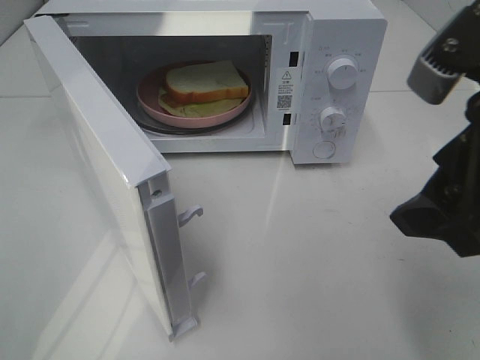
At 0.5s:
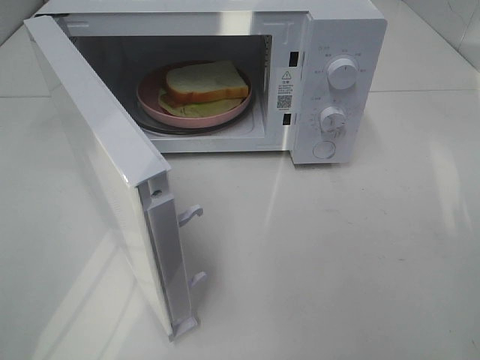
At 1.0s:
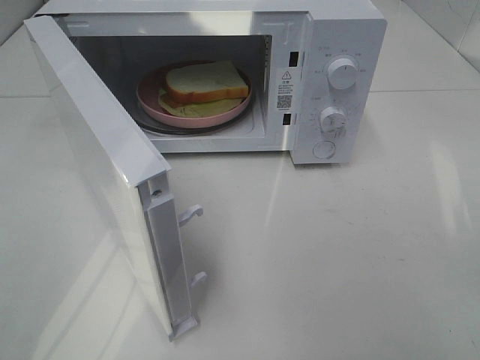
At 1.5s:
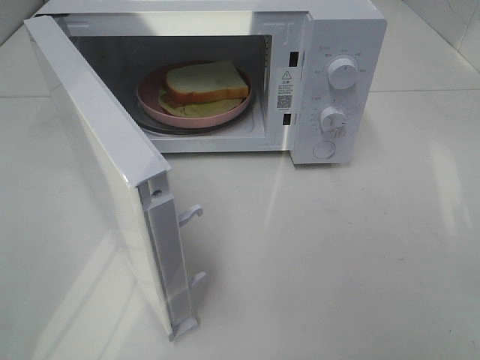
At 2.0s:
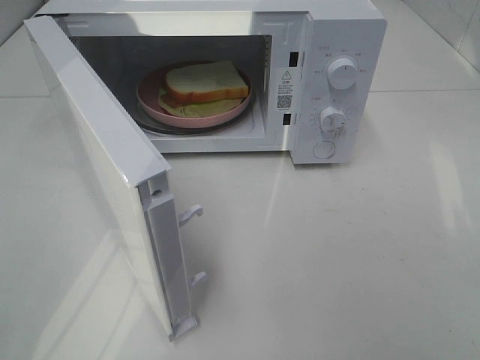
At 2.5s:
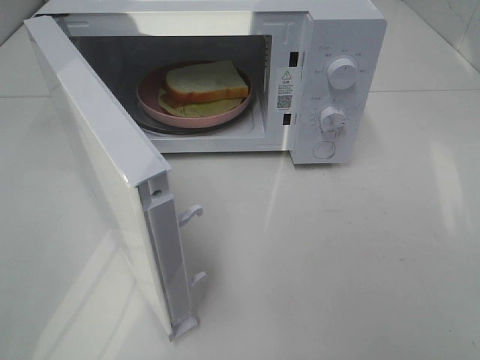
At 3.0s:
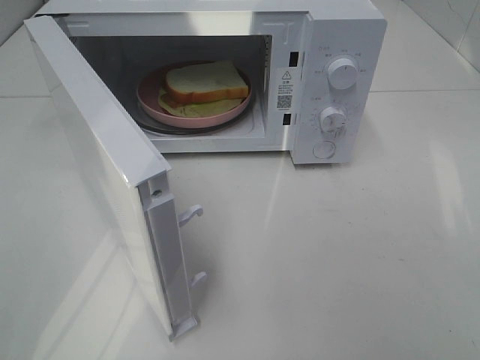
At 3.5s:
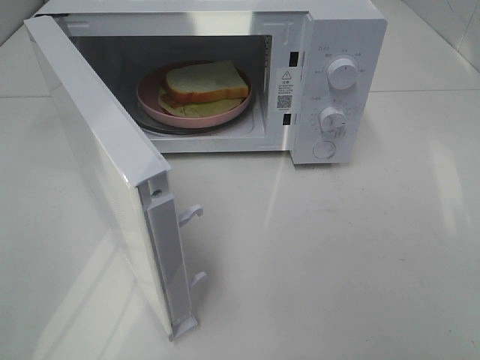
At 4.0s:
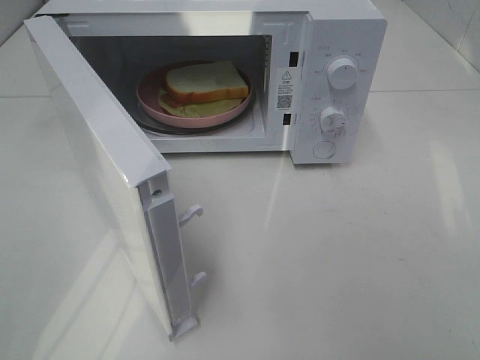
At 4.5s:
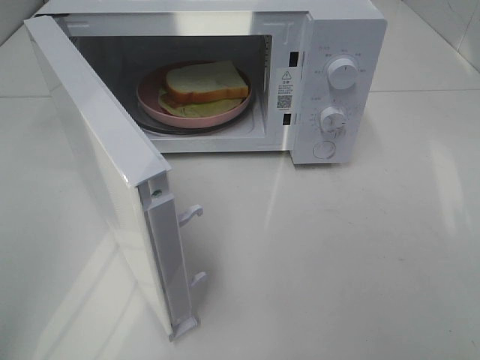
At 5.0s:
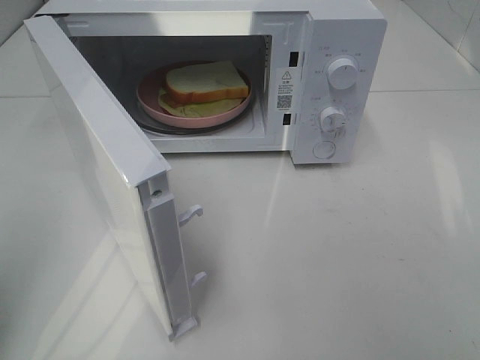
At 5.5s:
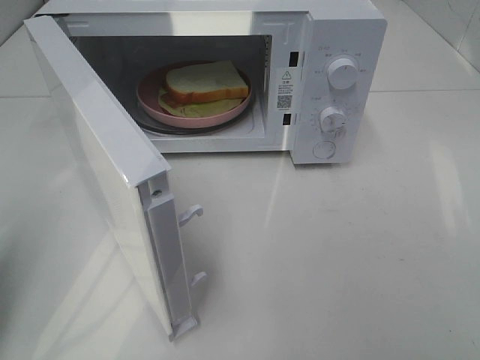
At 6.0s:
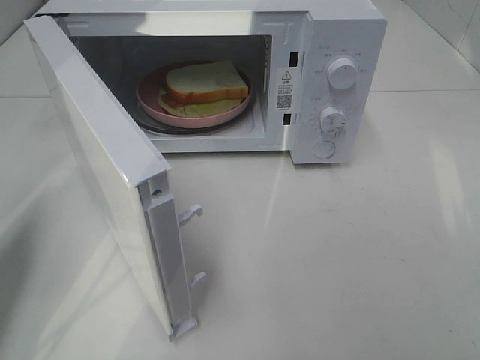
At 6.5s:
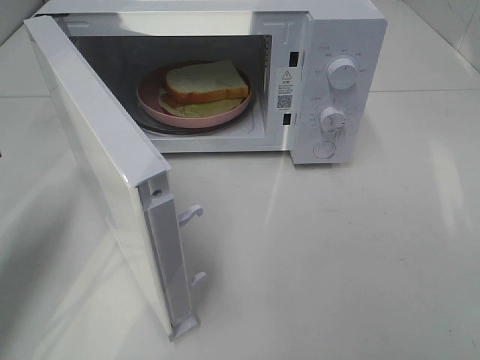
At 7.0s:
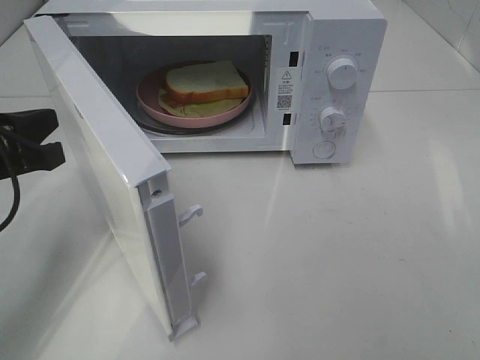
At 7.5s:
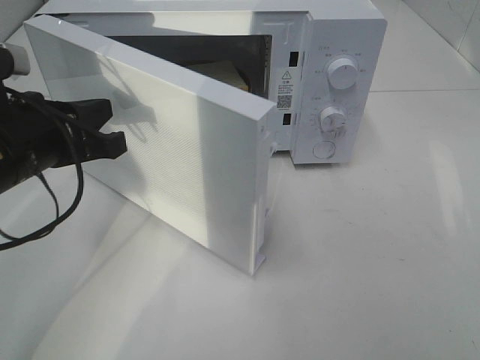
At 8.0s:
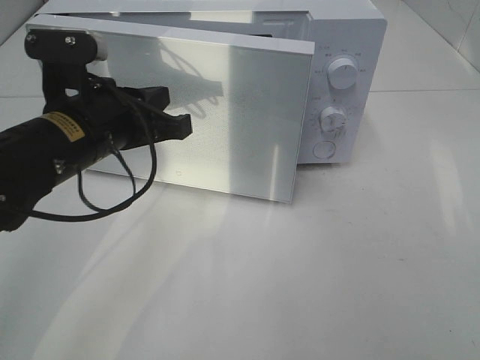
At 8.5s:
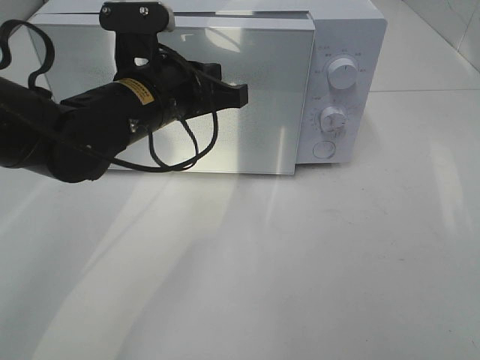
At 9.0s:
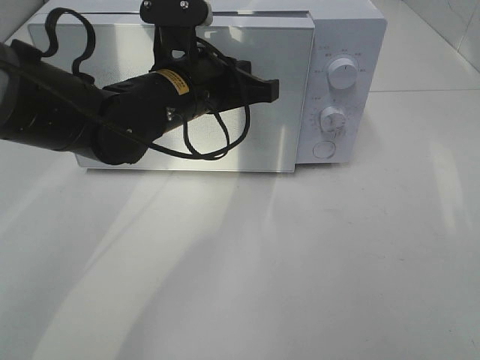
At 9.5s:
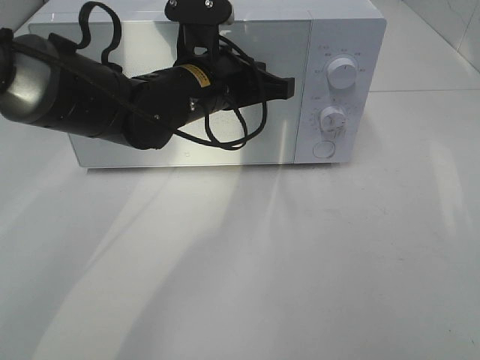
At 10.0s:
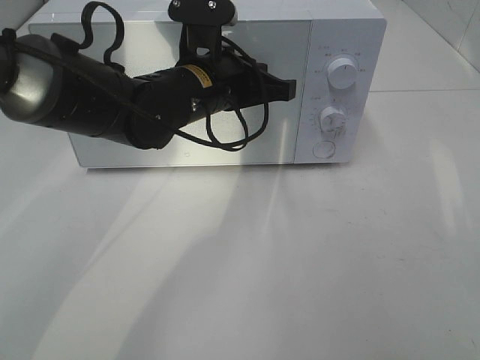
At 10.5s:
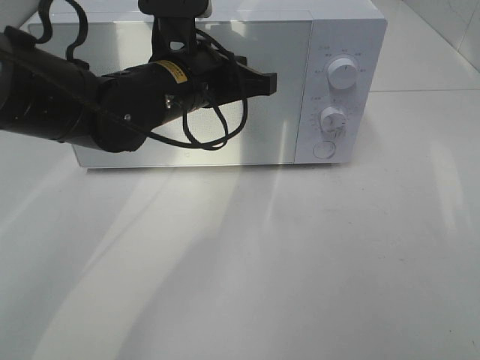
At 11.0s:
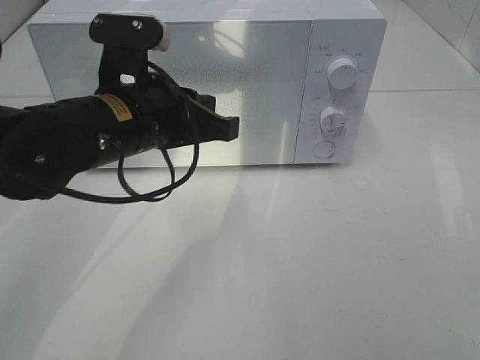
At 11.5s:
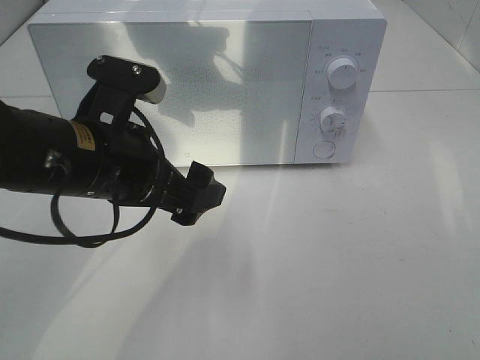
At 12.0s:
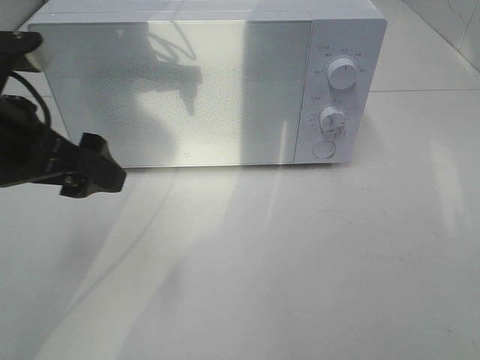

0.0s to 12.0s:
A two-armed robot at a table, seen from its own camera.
Task of the whole recording: Heat Sandwich.
Step, 0.0s to 10.5s: Left hand: close the microwave door.
0.0s to 2.0s: The right gripper travels backward and to the right by roughly 20 cm.
2.0s to 4.0s: Both grippers stay about where they are.
4.0s to 6.0s: The left gripper goes about 20 cm forward, and closes its fingers.
6.0s to 8.0s: The left gripper shifts roughly 20 cm to the right and forward.
8.0s to 10.0s: The left gripper travels to the right and forward by roughly 15 cm.
10.0s to 12.0s: The left gripper goes some 20 cm to the left and backward, and opens up.

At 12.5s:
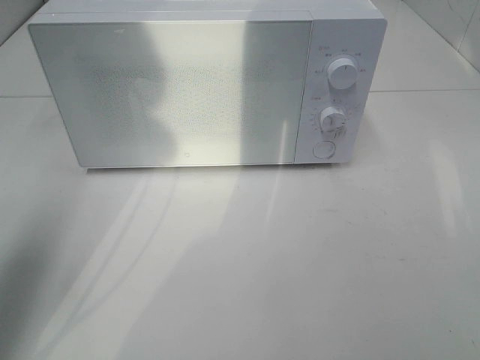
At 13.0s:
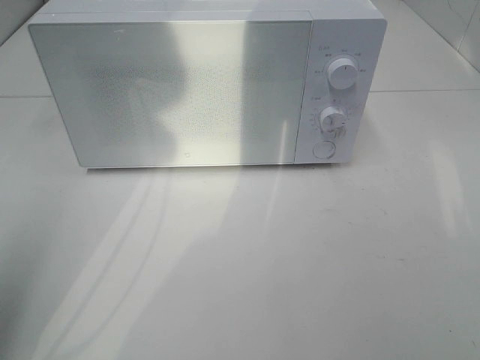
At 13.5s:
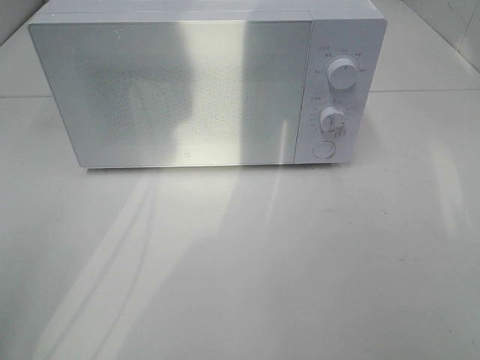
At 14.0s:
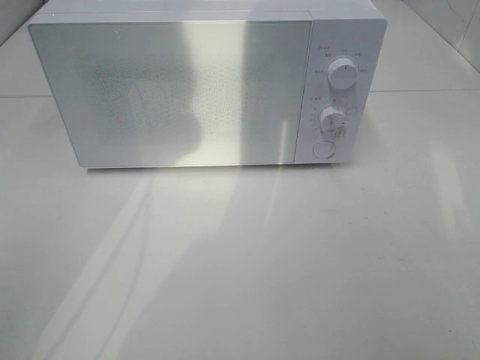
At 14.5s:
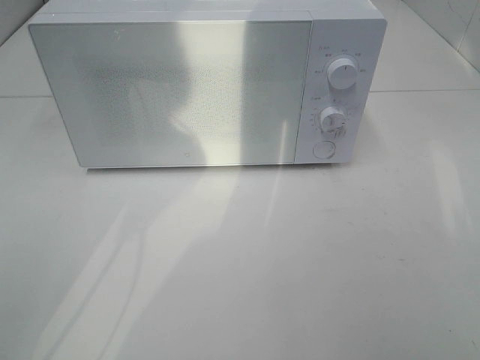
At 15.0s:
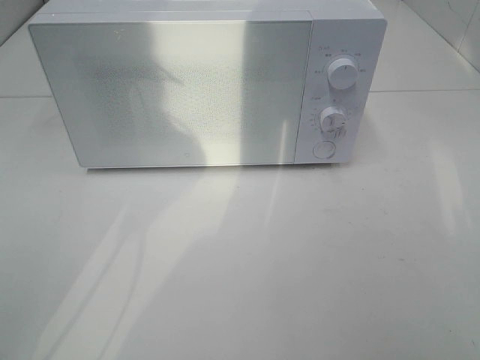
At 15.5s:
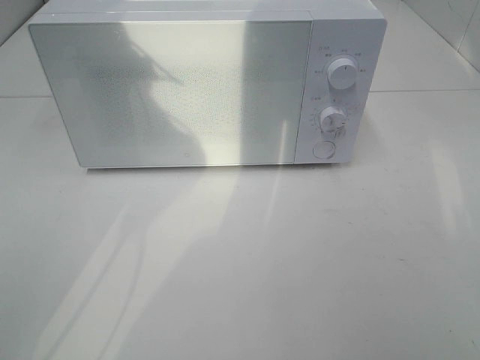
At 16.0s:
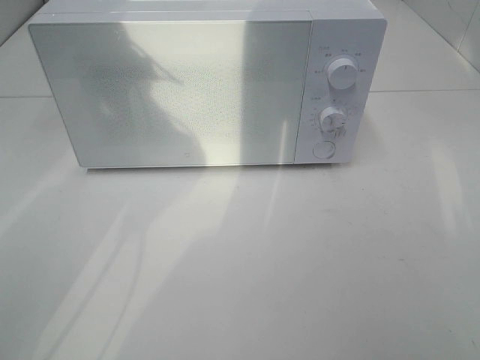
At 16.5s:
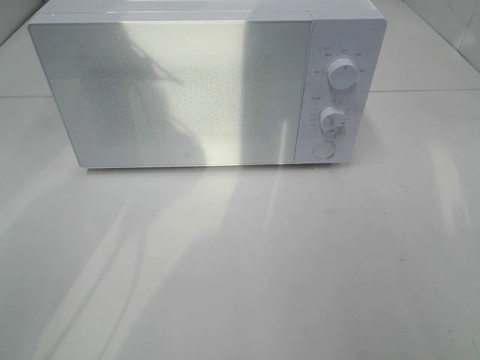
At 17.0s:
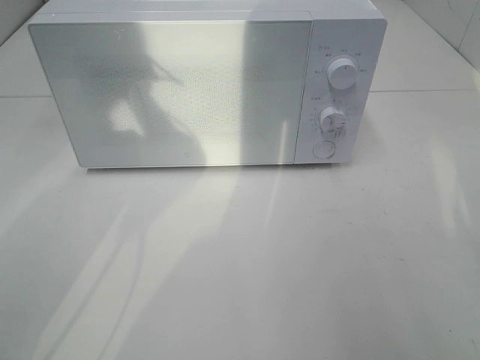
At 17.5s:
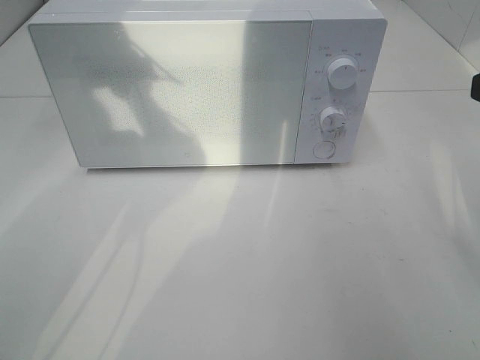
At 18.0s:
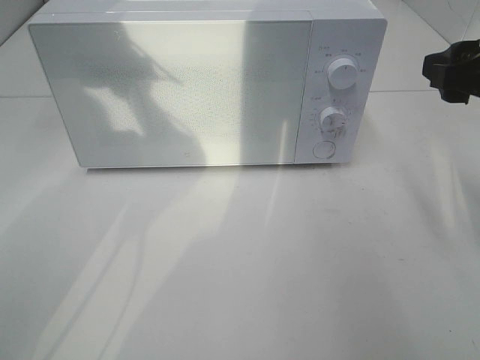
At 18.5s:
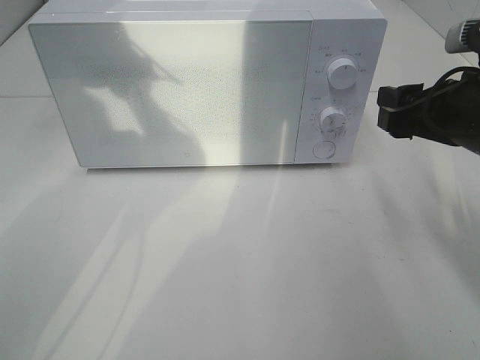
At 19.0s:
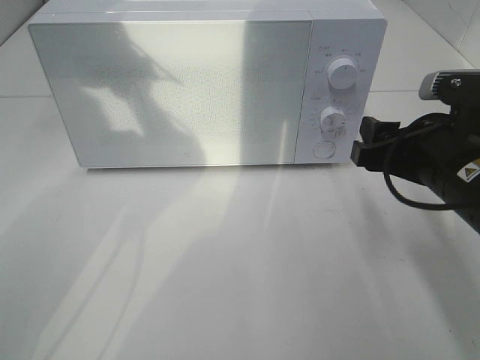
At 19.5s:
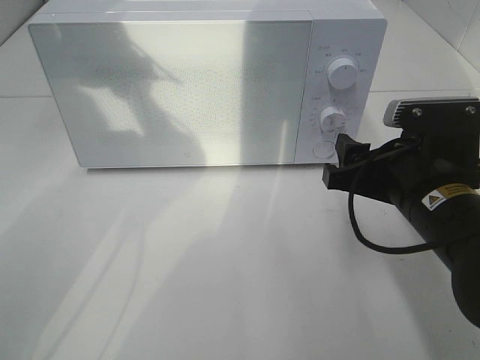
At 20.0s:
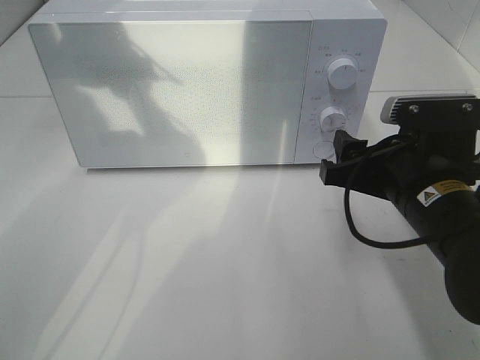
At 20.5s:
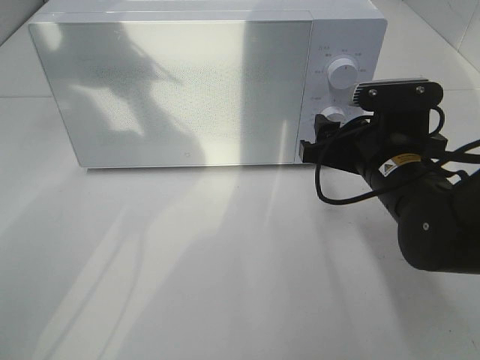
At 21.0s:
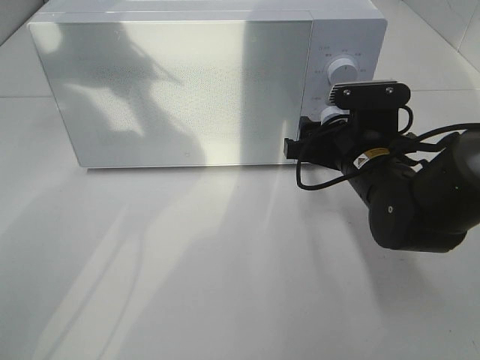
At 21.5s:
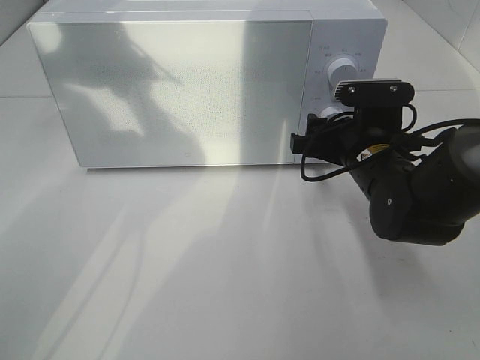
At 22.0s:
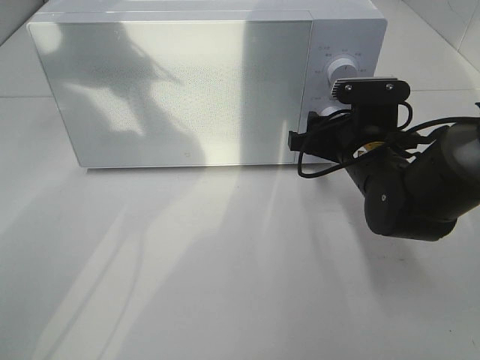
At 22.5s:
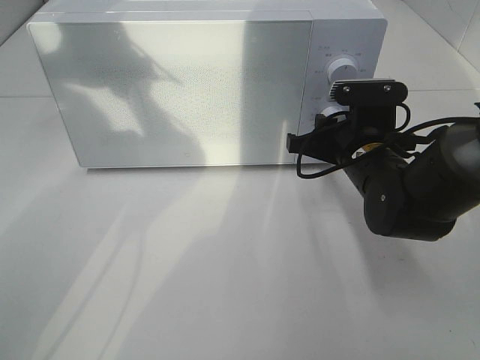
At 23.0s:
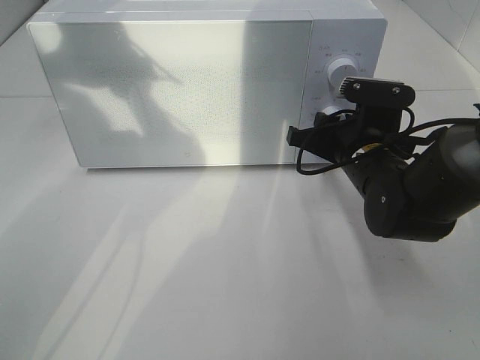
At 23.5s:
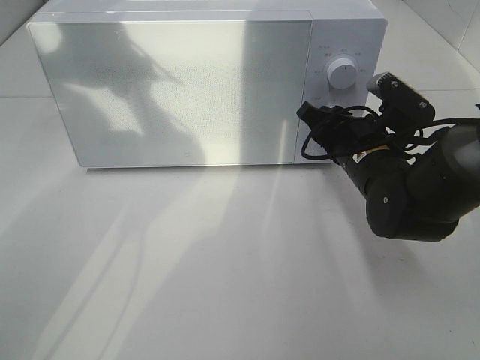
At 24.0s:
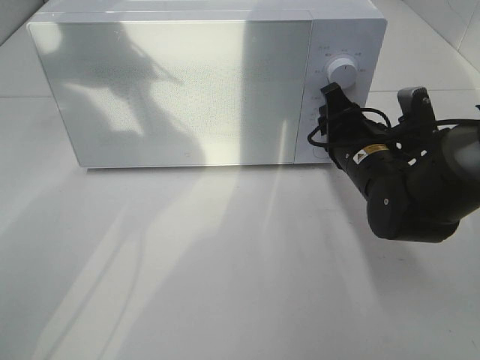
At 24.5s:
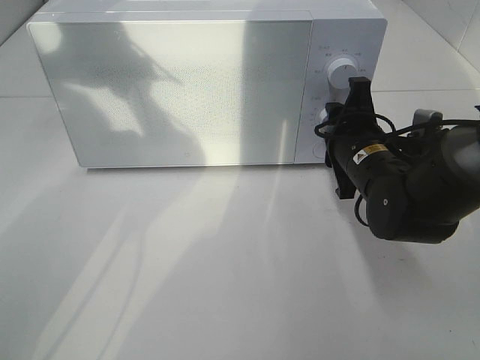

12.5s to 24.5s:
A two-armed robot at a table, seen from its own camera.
Task of the whole recording: Heat Sandwich.
12.5s to 14.5s: The left gripper shifts some 20 cm backward.
14.5s to 16.5s: The right gripper shifts by roughly 5 cm.
16.5s to 18.5s: The right gripper goes some 25 cm forward and downward.
18.5s to 20.5s: The right gripper shifts some 10 cm to the left and downward.
20.5s to 22.5s: The right gripper shifts by some 5 cm, and closes up.

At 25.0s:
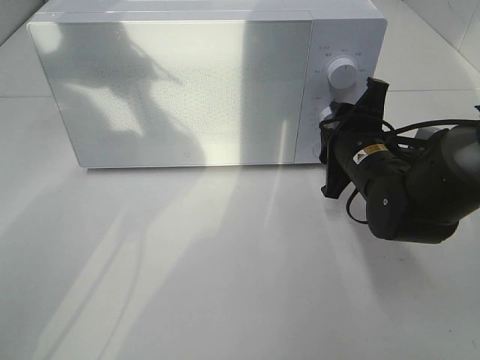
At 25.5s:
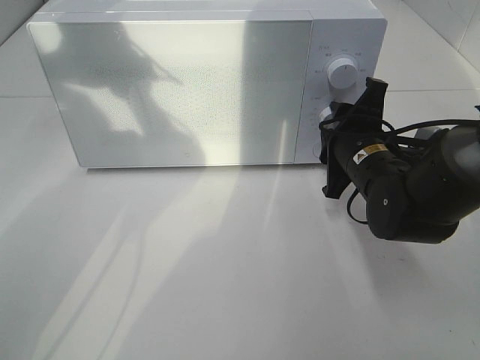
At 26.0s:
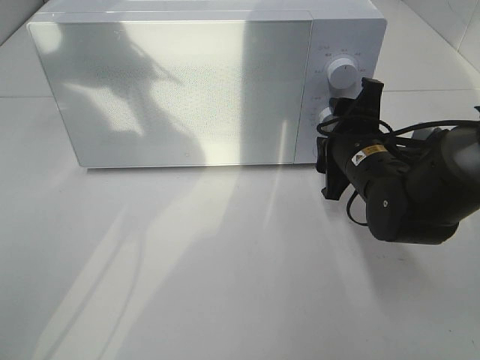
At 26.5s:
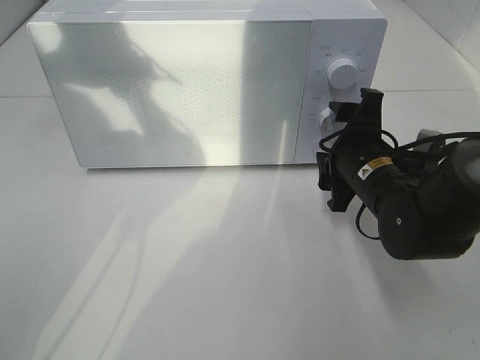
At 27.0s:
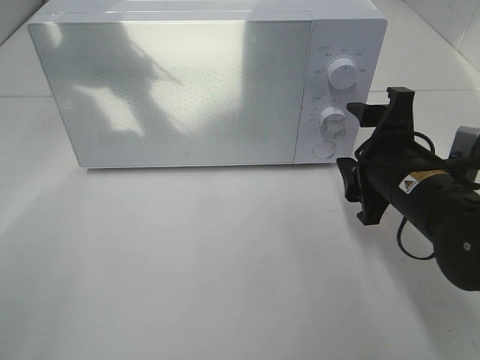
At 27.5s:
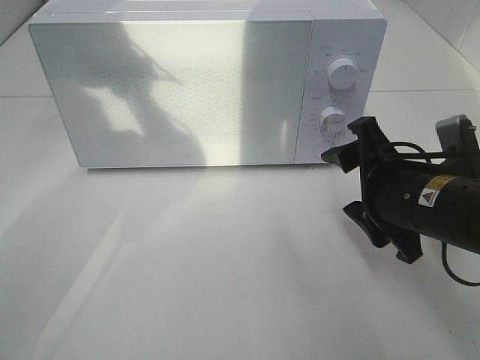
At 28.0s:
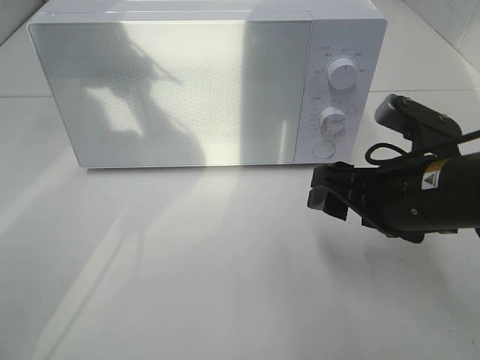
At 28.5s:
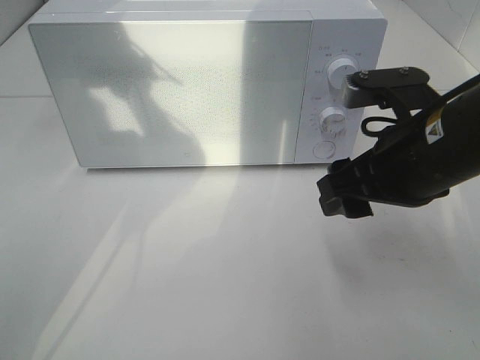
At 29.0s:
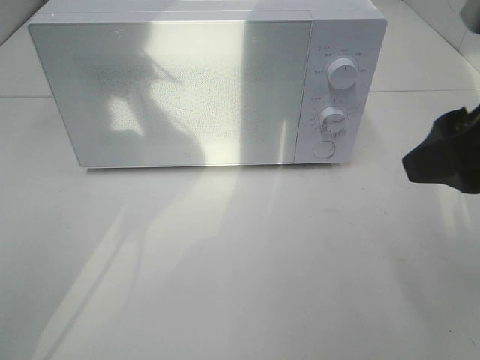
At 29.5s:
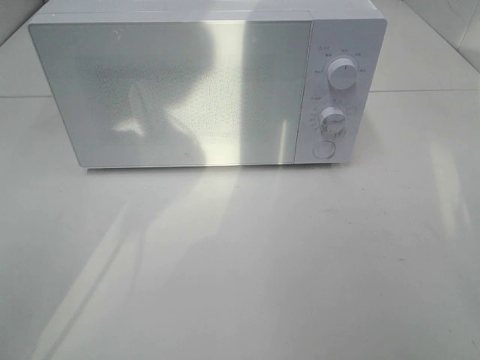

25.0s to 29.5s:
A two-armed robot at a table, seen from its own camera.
Task of the whole recording: Heat Sandwich.
25.0s to 27.0s: The right gripper is displaced backward by about 5 cm, and opens.
27.0s to 29.5s: The right gripper is displaced upward, backward and to the right by some 30 cm.
